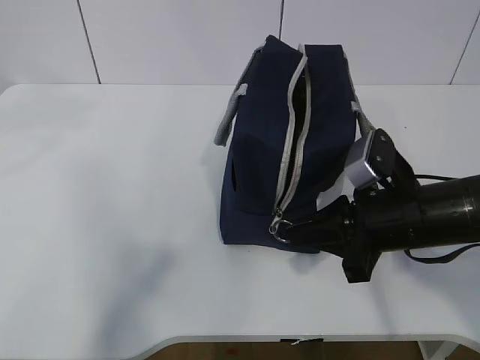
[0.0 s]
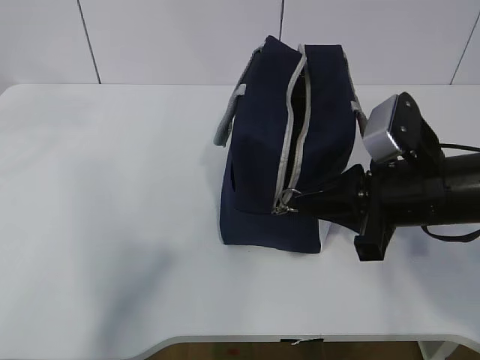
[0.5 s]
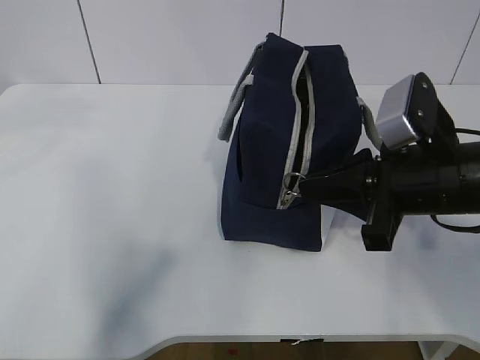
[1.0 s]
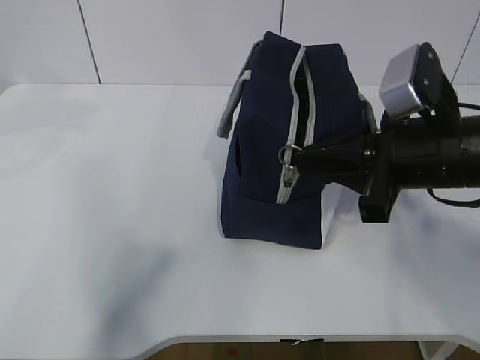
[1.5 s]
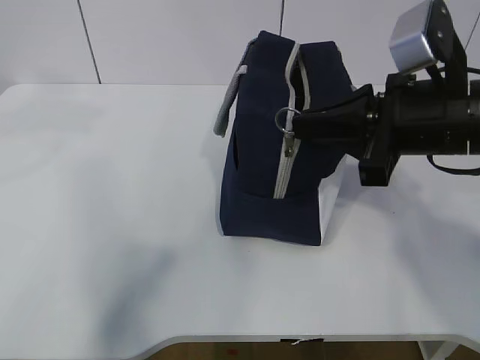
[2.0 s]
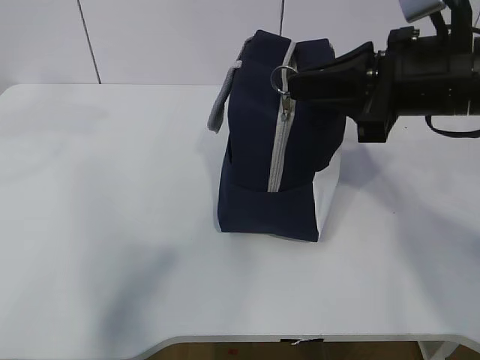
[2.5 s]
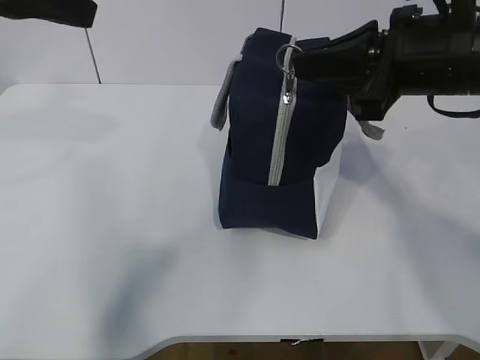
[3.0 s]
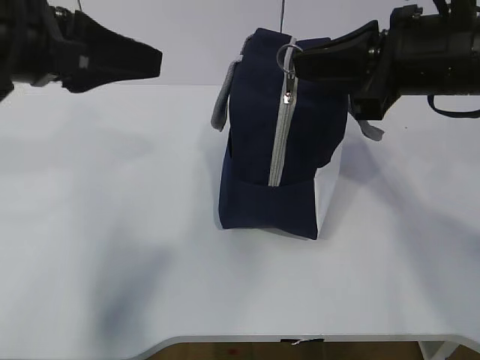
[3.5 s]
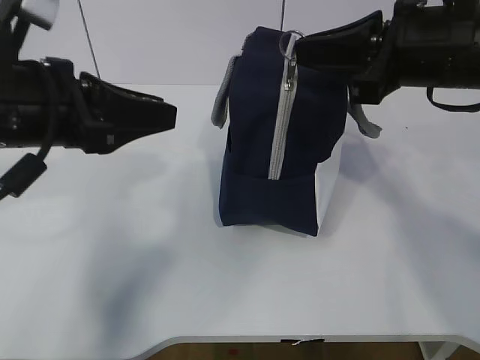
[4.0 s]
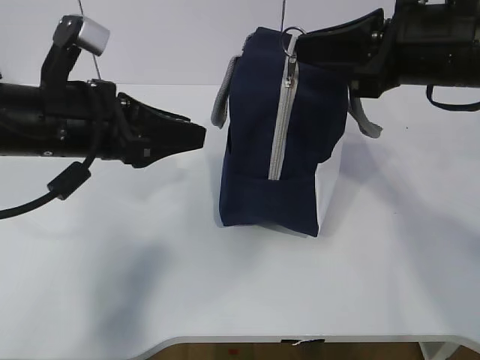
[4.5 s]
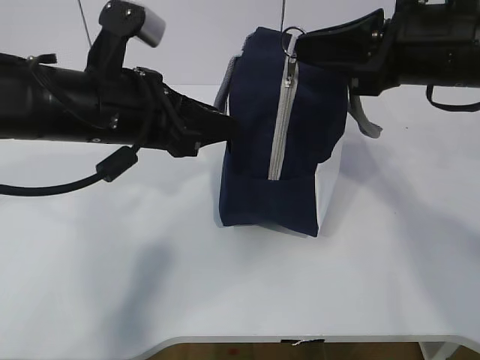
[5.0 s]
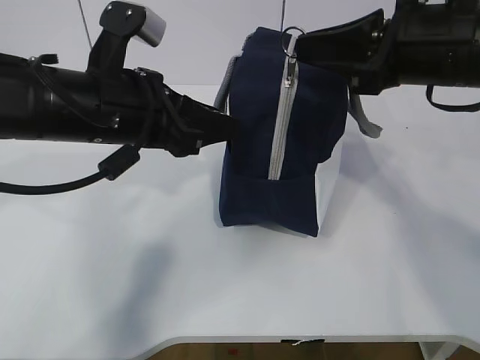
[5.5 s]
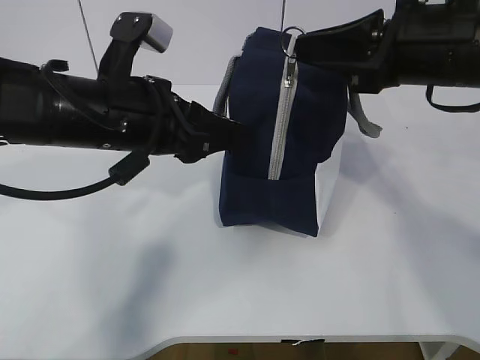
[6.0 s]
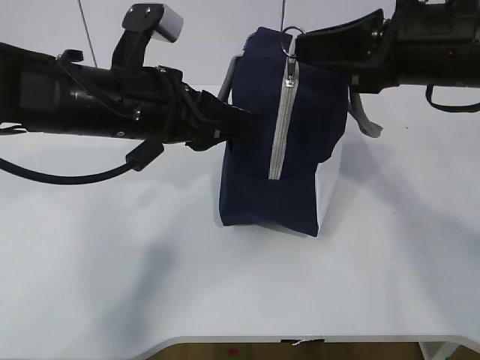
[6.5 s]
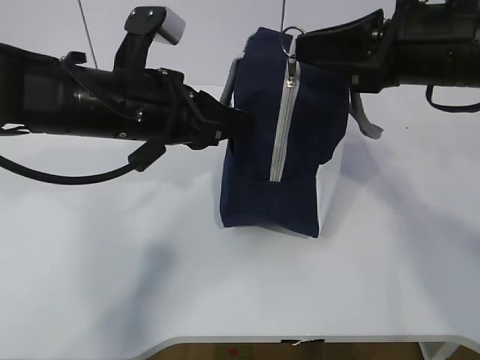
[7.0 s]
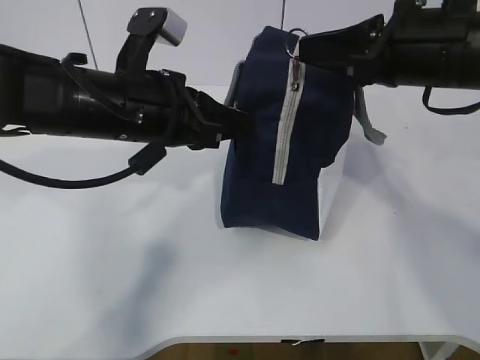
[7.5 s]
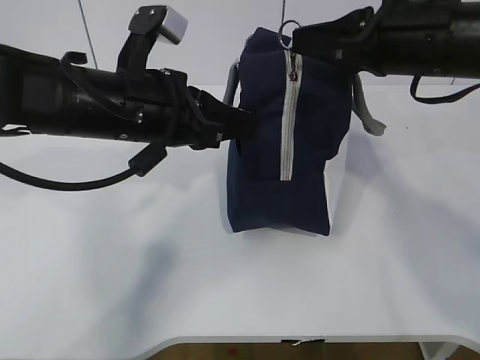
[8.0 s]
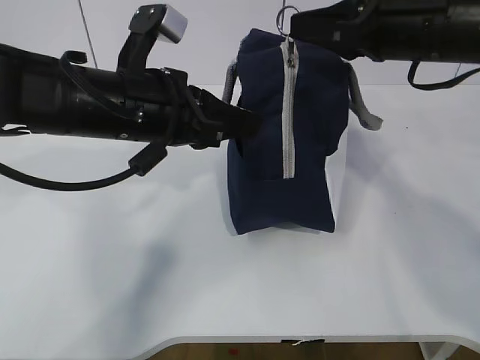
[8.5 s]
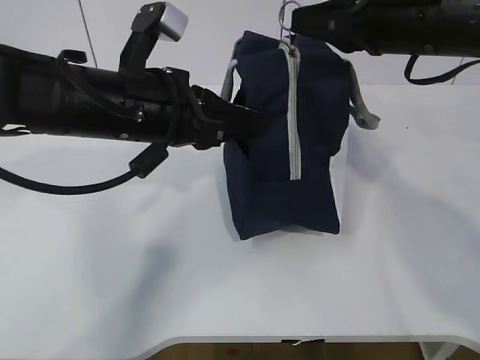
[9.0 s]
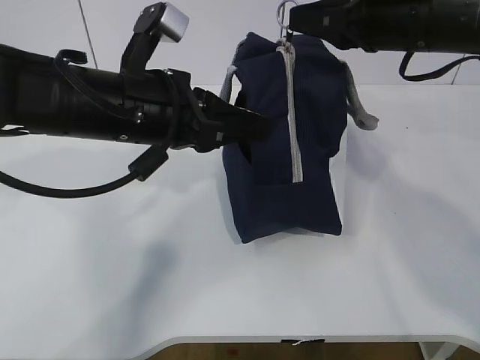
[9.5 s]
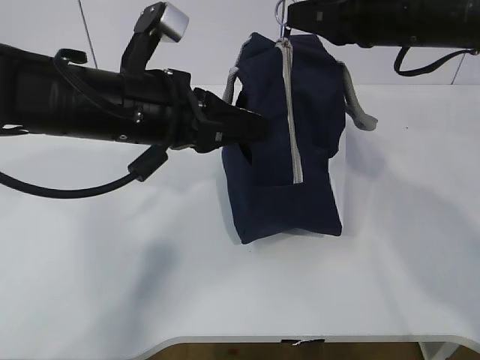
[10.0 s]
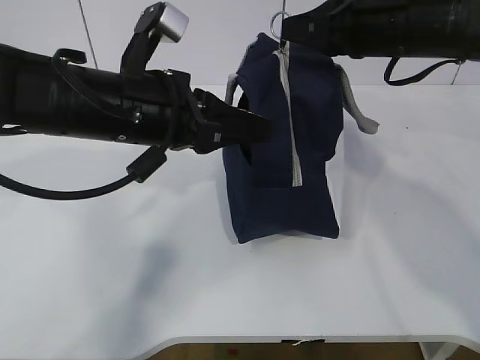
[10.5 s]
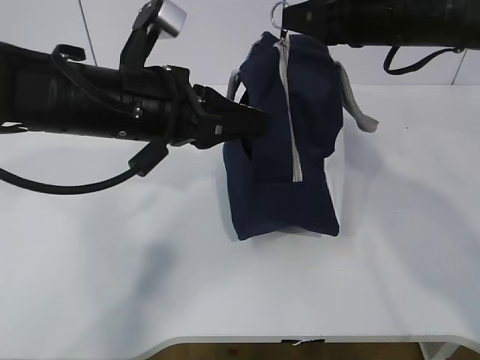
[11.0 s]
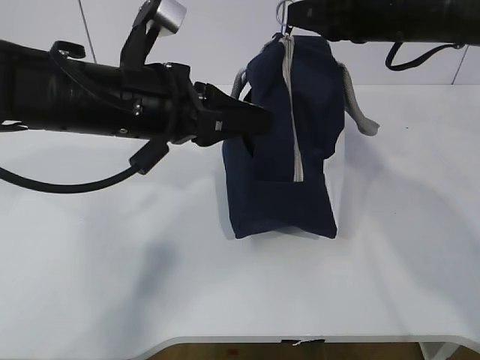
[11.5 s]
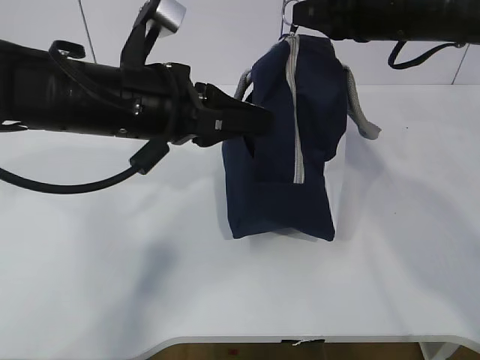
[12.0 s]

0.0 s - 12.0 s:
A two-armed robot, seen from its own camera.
Step, 0.0 s - 4.5 s: Grab the lunch bag with your left hand.
0.0 s - 2.0 s: The right gripper travels upward by about 10 cm.
2.0 s - 4.0 s: The left gripper travels downward by some 15 cm. The right gripper ends up roughly 5 cm from where it was.
4.0 s - 6.0 s: The left gripper travels to the right by about 5 cm.
6.0 s - 8.0 s: The left gripper closes up.
8.0 s - 12.0 s: The grippers make only small movements.

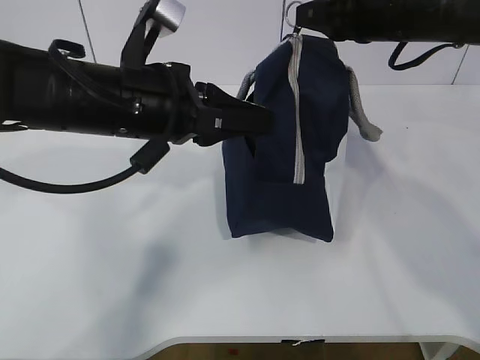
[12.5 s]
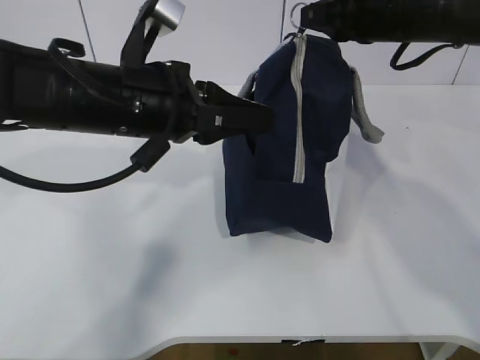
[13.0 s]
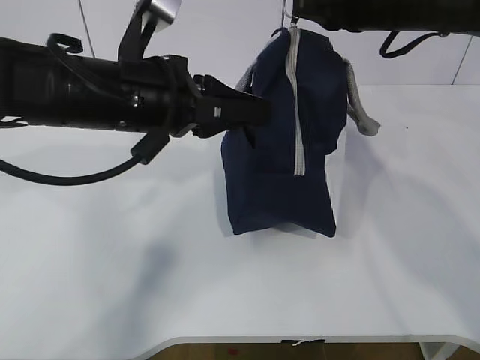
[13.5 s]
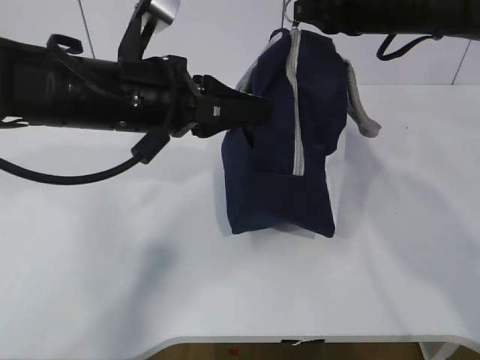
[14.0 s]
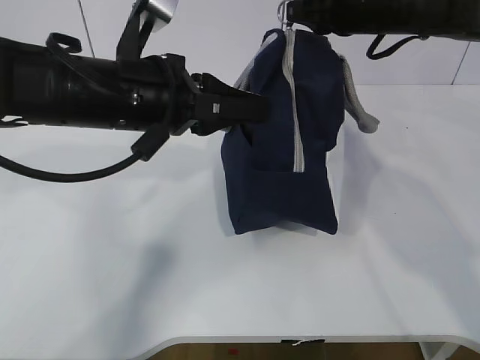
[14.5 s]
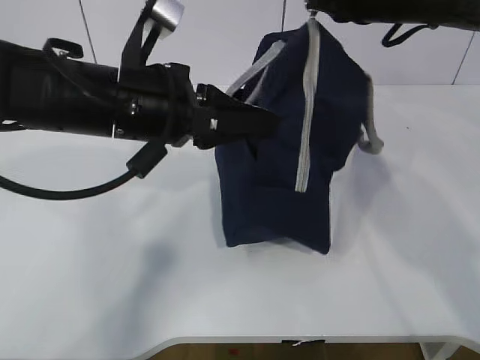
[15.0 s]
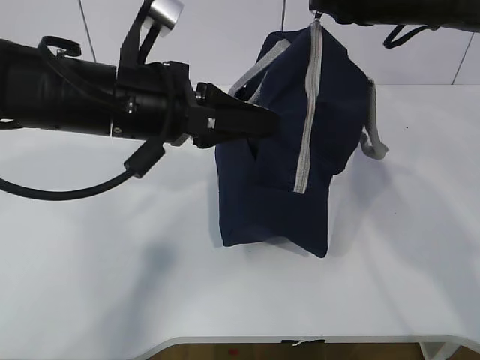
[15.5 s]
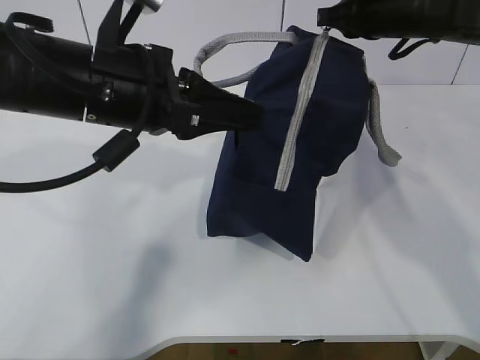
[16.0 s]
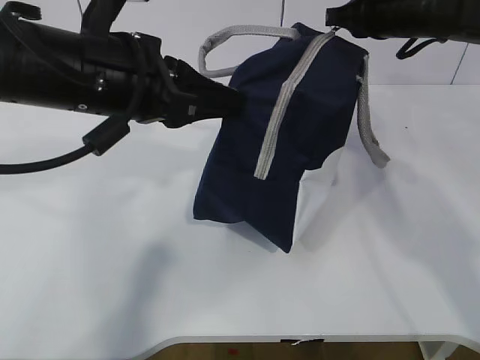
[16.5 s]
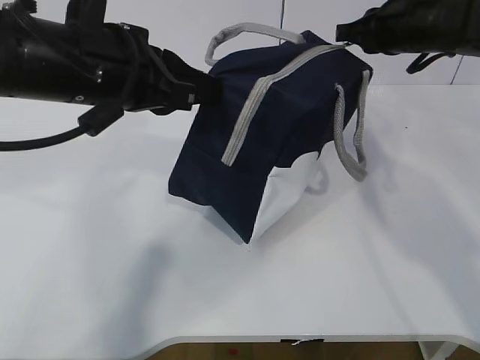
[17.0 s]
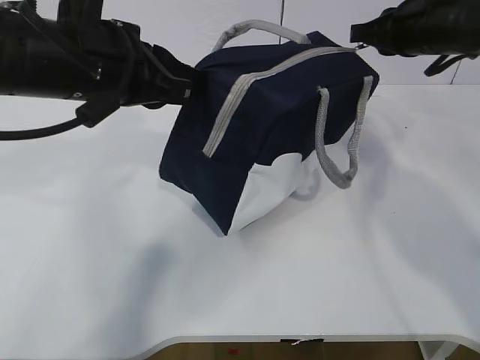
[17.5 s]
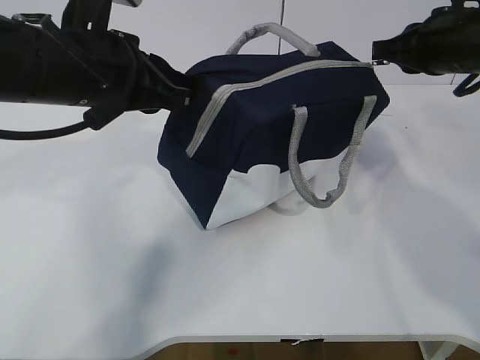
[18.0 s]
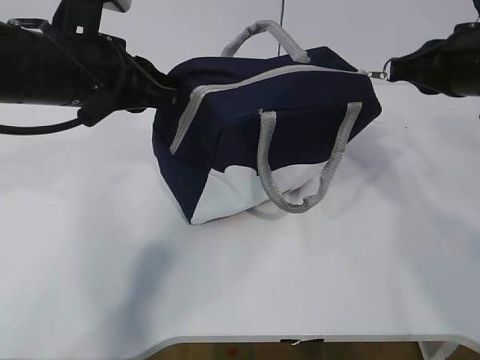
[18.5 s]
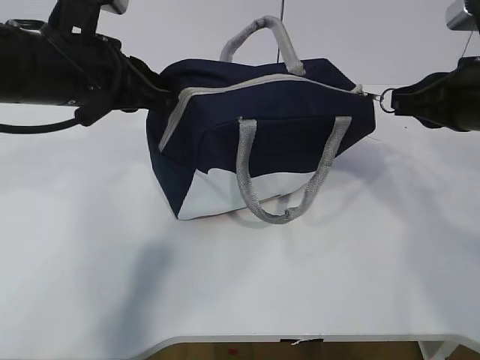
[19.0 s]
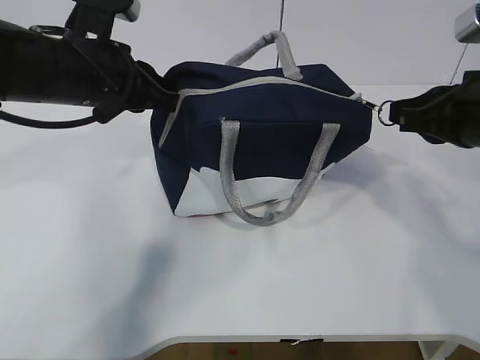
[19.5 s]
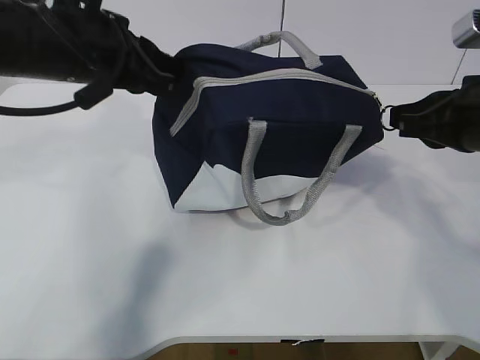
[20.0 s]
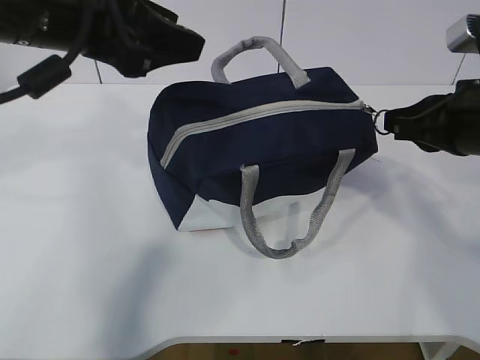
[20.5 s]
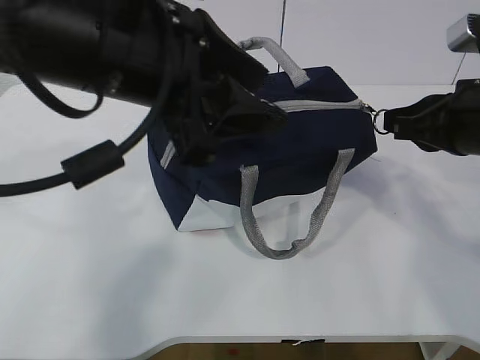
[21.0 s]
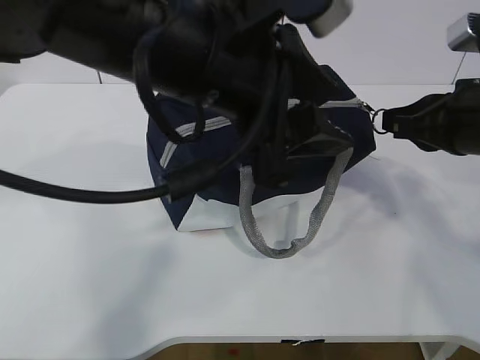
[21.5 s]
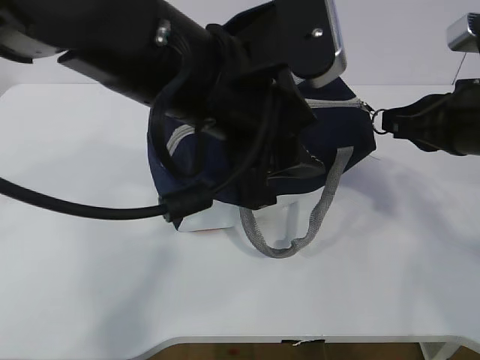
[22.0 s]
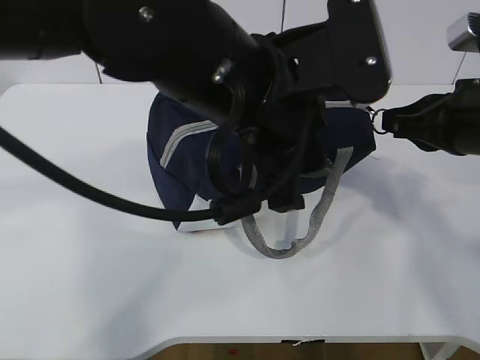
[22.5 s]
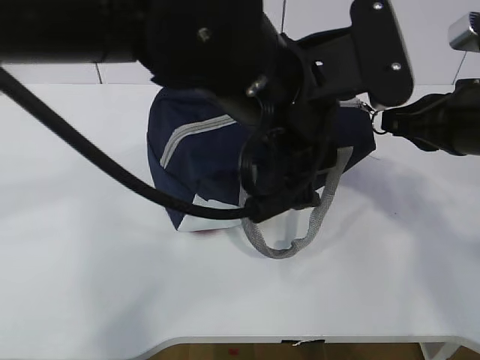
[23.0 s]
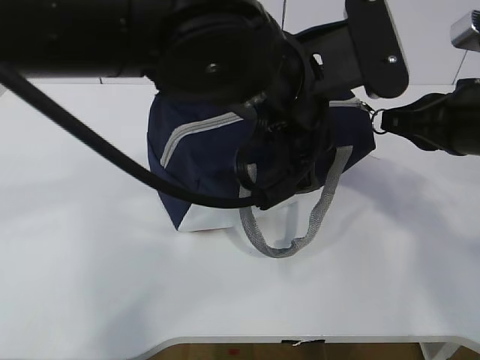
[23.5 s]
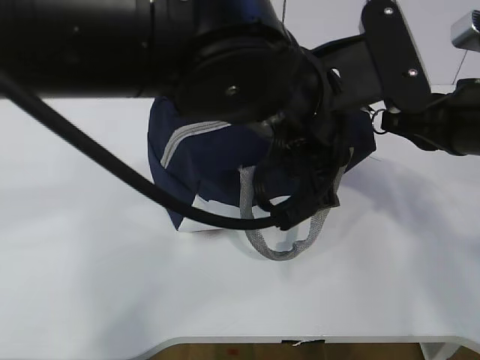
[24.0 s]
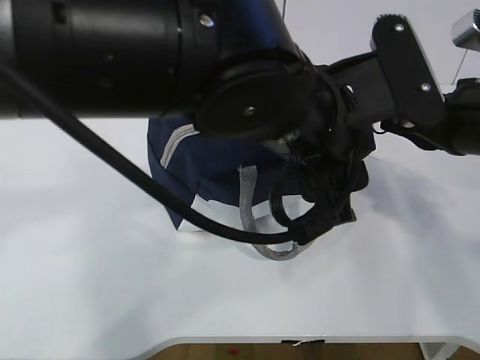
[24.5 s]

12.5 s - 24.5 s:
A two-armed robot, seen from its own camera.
12.5 s - 14.5 s: There are only small adjustments of the grippers.
14.5 s - 16.5 s: The right gripper moves about 5 cm.
16.5 s - 18.5 s: The left gripper ends up roughly 5 cm from where it was; the right gripper travels backward by about 10 cm.
18.5 s - 20.5 s: The right gripper is displaced backward by some 5 cm, while the left gripper heads upward, covering roughly 5 cm, and opens.
20.5 s - 22.5 s: The left gripper travels to the right by approximately 15 cm.

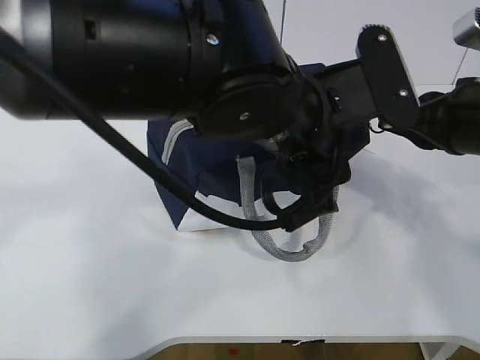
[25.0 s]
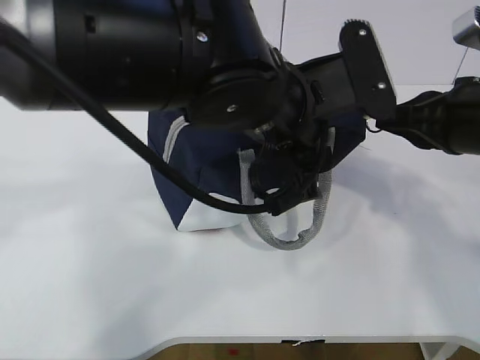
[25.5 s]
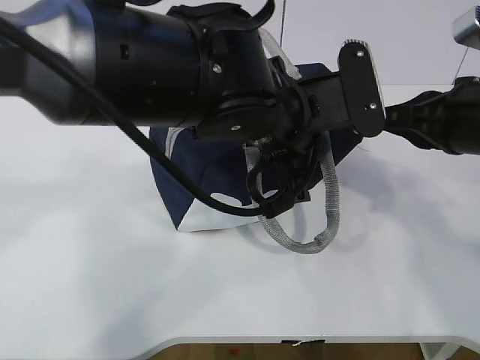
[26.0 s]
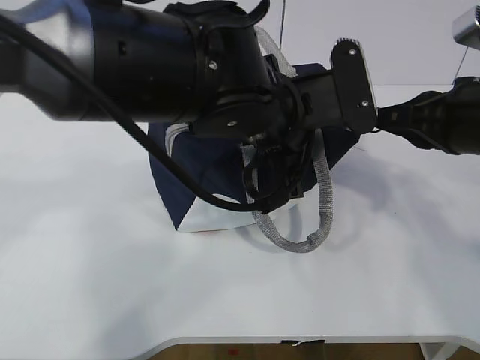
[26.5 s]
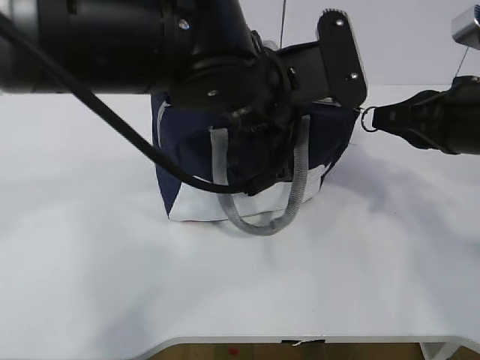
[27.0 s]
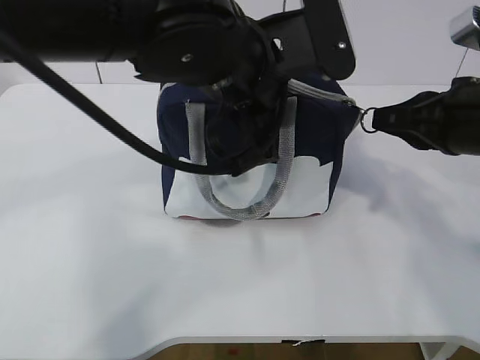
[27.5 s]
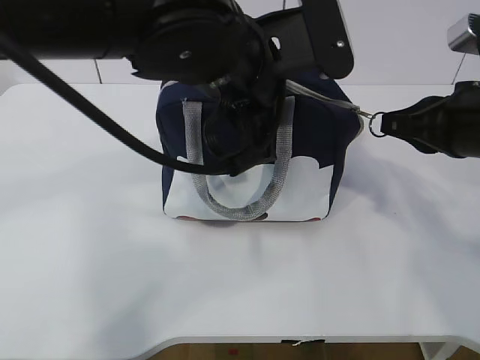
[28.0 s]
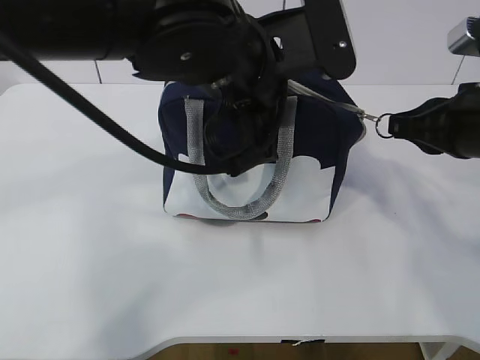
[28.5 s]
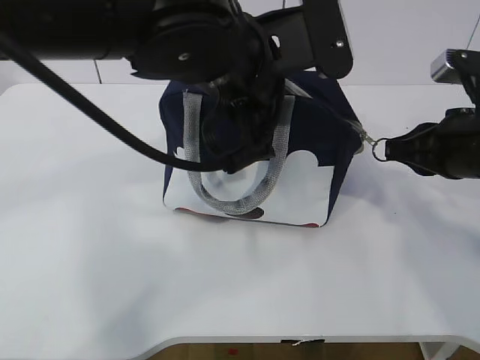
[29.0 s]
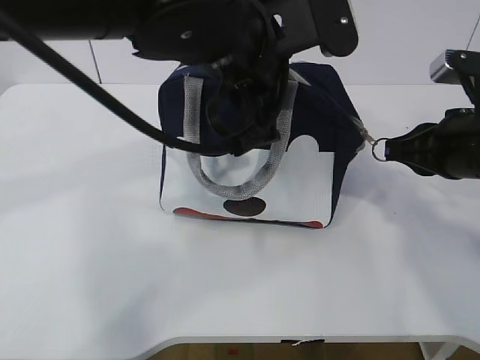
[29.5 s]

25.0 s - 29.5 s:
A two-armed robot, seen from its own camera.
25.0 s - 27.0 s: The left gripper closes.
